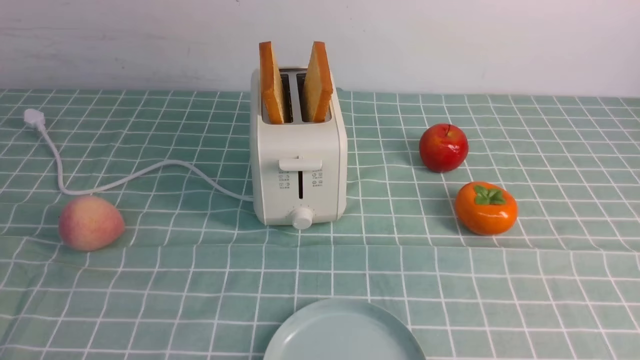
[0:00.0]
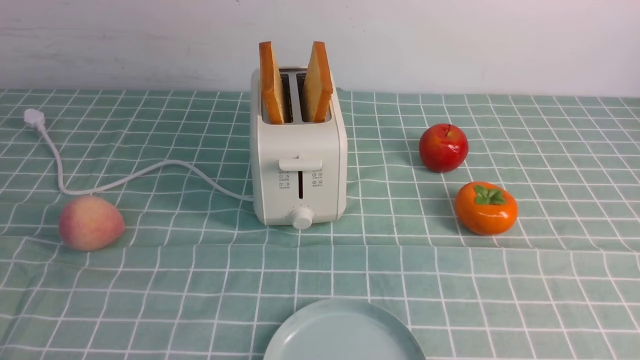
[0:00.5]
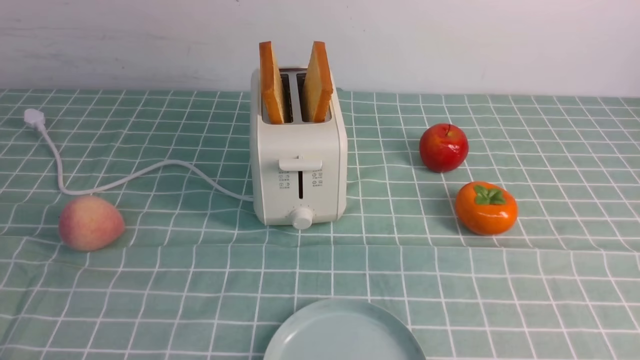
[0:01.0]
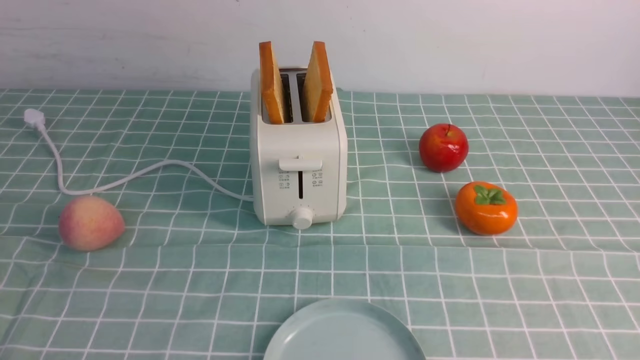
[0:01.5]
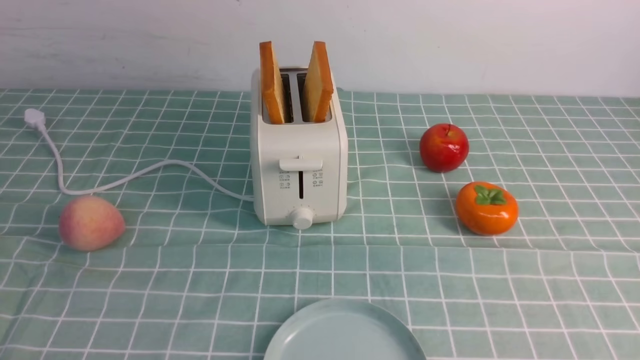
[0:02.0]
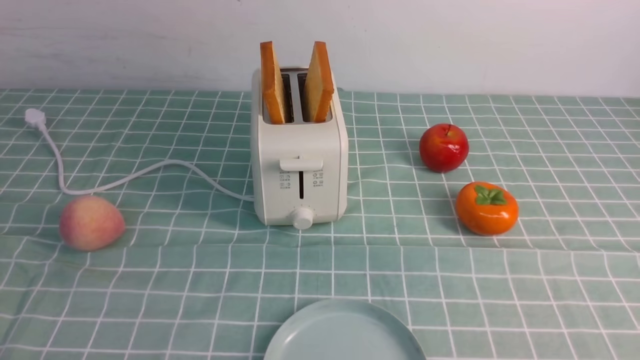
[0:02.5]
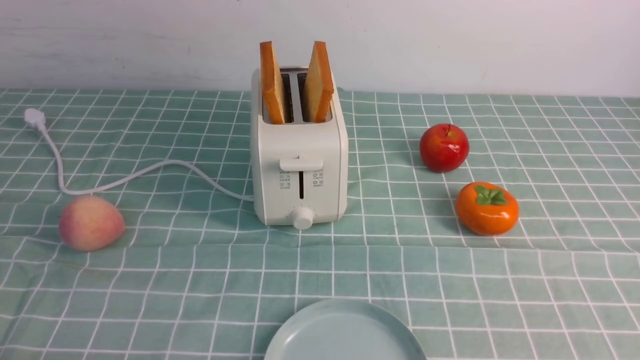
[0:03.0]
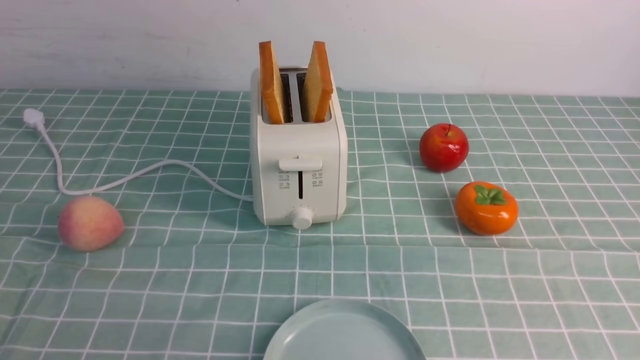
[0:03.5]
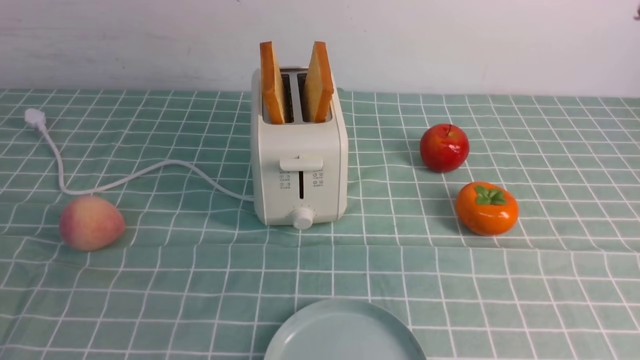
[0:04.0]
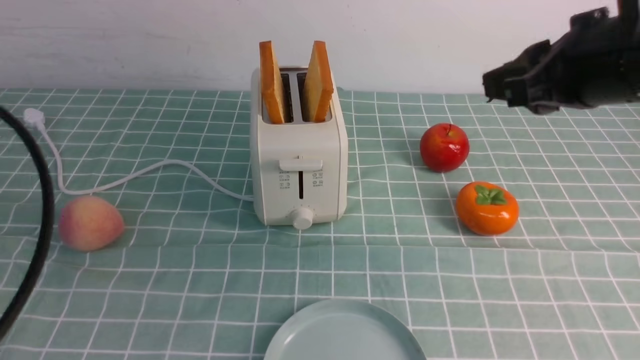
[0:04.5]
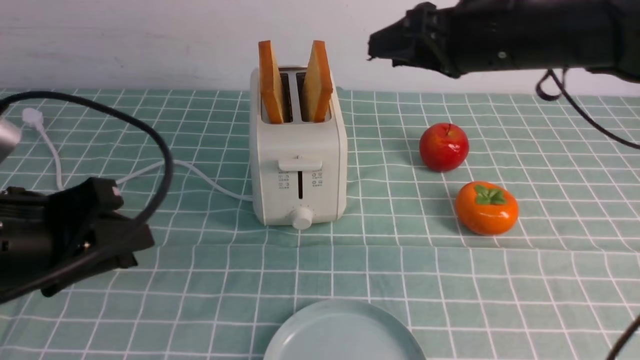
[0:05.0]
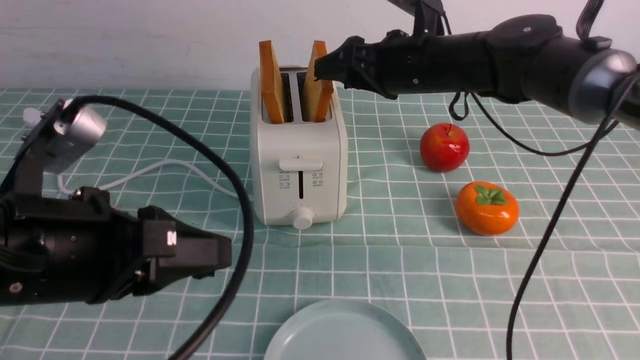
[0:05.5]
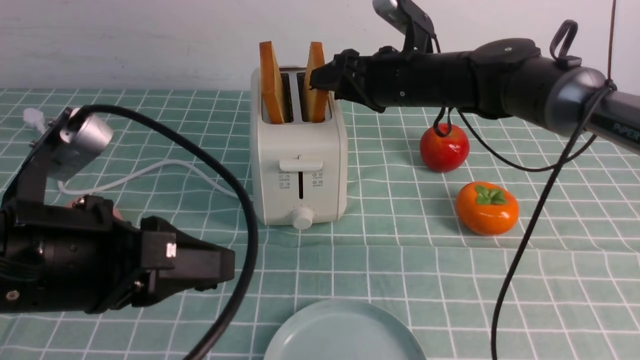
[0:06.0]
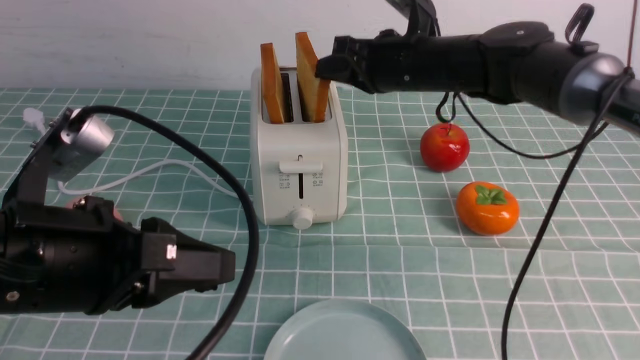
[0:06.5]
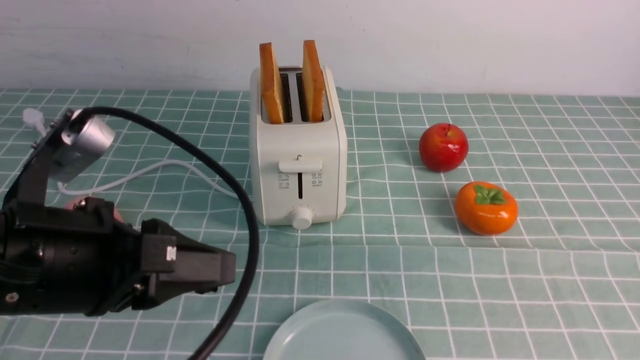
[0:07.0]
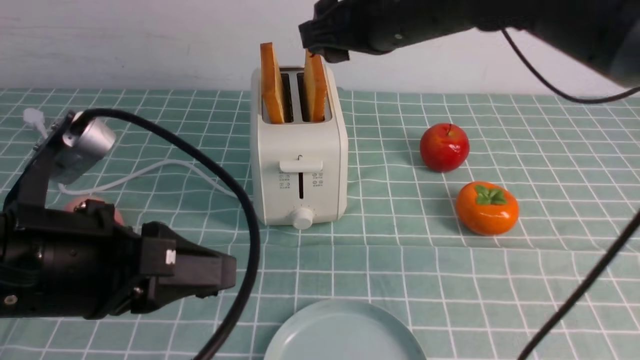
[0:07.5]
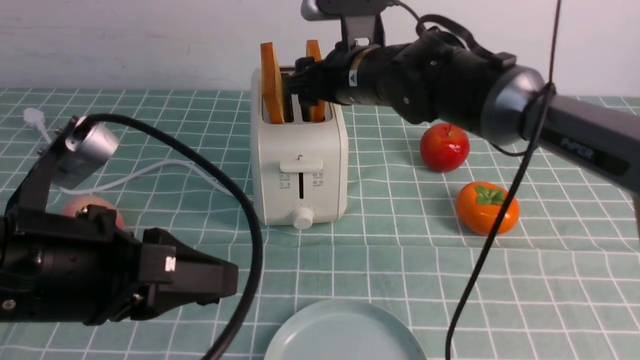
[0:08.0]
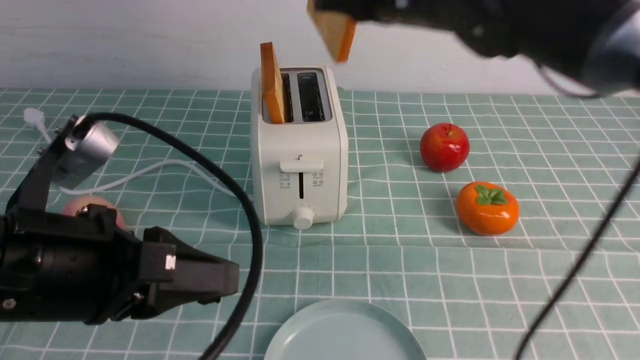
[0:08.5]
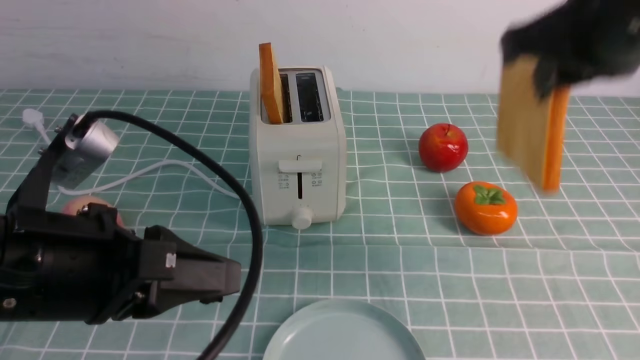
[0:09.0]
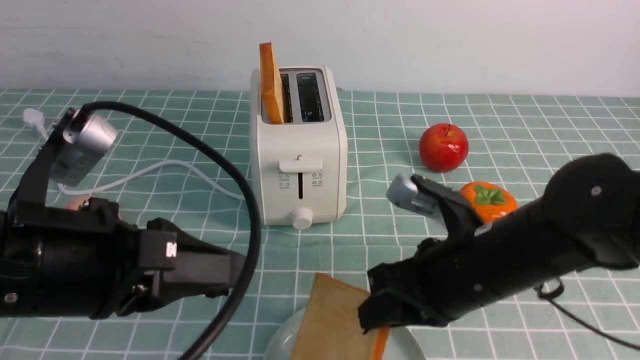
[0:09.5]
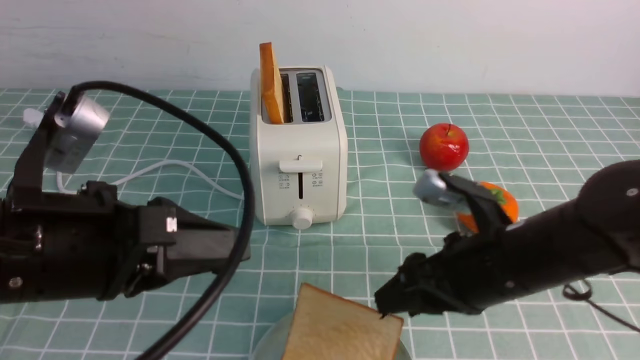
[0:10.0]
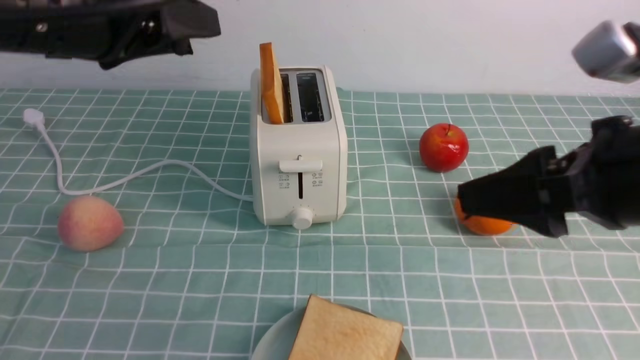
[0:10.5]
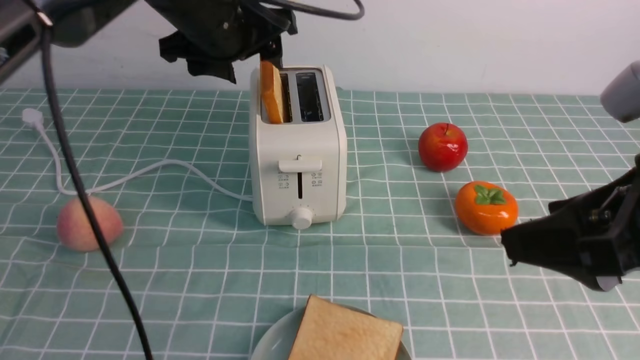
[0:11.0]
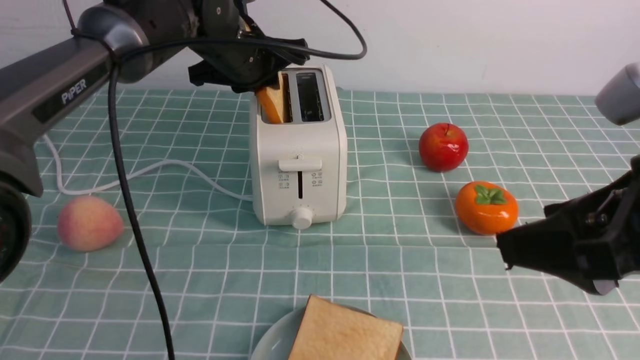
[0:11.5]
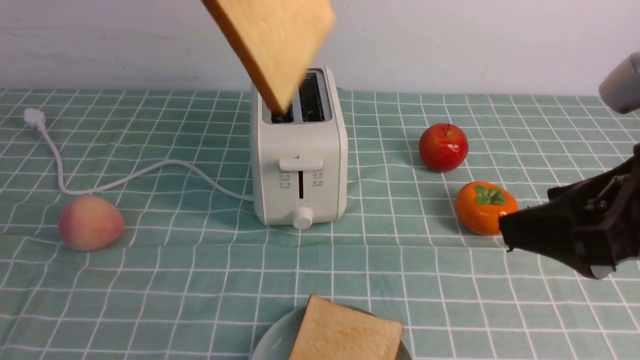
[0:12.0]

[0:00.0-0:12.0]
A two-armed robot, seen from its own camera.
Task of the whole recording: take toasted bread from bread machine on blue coffee table place on plate.
Step, 0:00.0 to 0:08.0: use the right arm to take out a slice of bread.
Step, 0:08.5 to 0:10.0: use the right arm to put a slice of bread into the plate.
Step, 0:10.5 to 0:11.5: use the left arm to take out a slice of bread.
0:00.0 to 0:02.0: Neither gripper changes place.
0:04.0 to 0:06.0: The left gripper goes some 20 cm forward, to the right and downward; the right gripper heads forward, to the left and downward, covering some 35 cm.
0:06.0 to 0:08.0: The right gripper travels to the left by approximately 5 cm, travels upward and back again, roughly 15 cm each way, and closes, then opens again.
0:08.0 to 0:10.0: The right gripper shifts some 20 cm backward and to the right, and closes and opens again.
0:10.0 to 0:12.0: The right gripper travels upward, backward and to the right by about 15 cm; the left gripper is displaced forward, upward and to the right by approximately 15 cm, and opens, then closes once more.

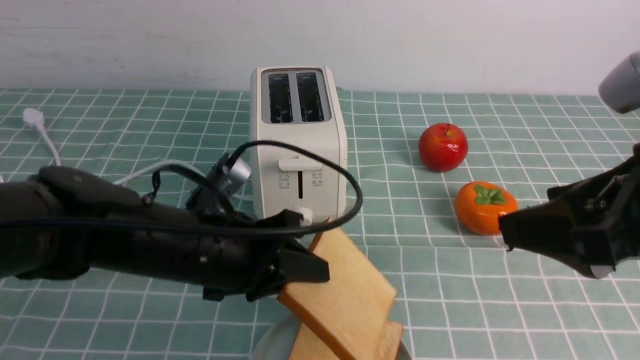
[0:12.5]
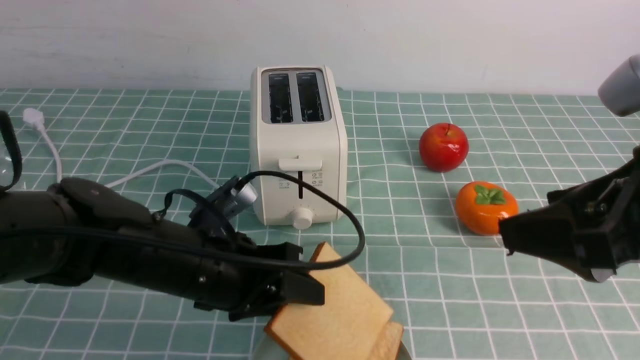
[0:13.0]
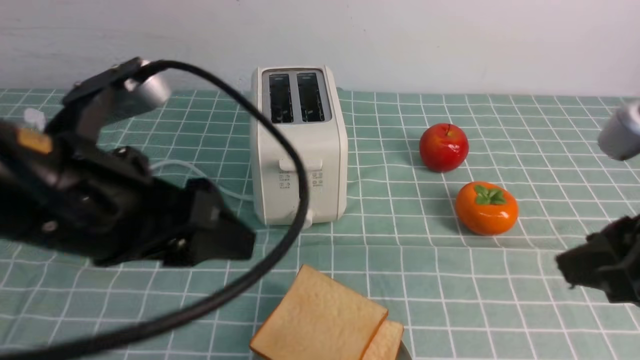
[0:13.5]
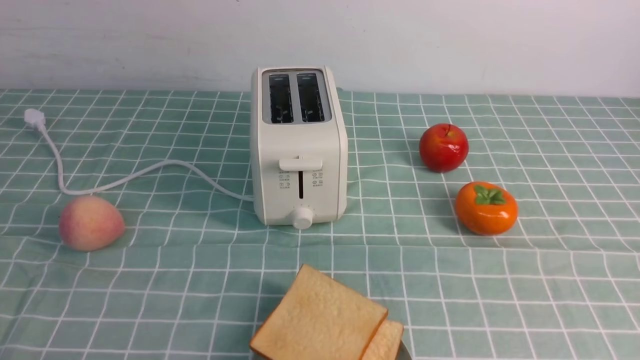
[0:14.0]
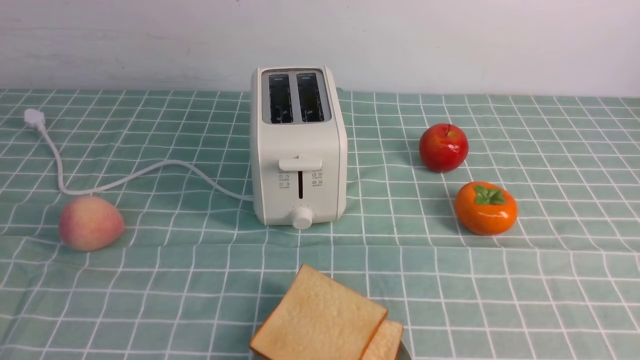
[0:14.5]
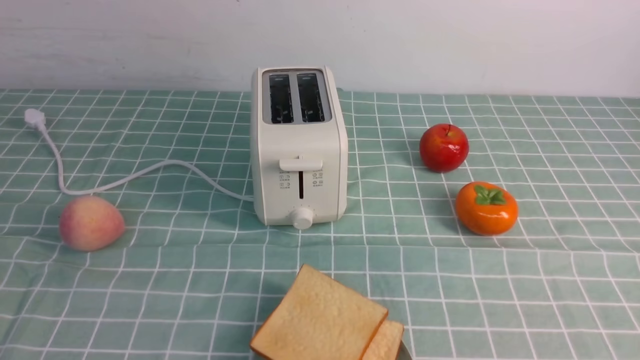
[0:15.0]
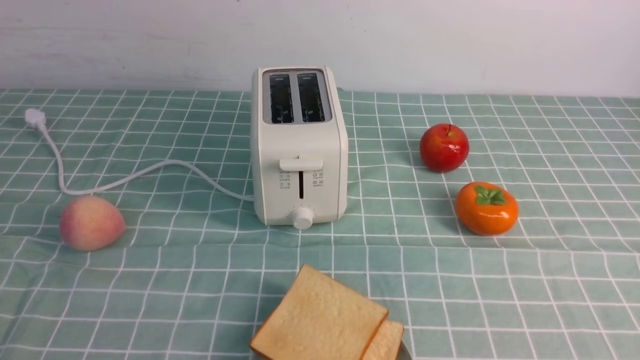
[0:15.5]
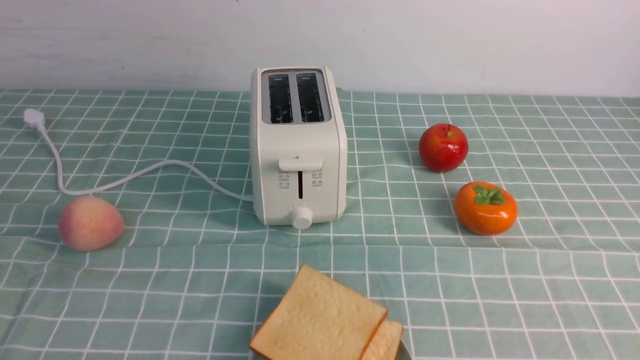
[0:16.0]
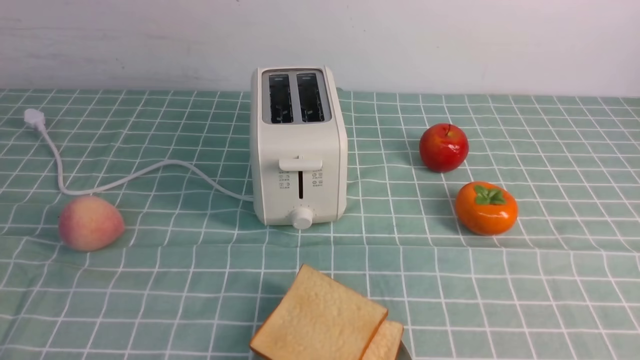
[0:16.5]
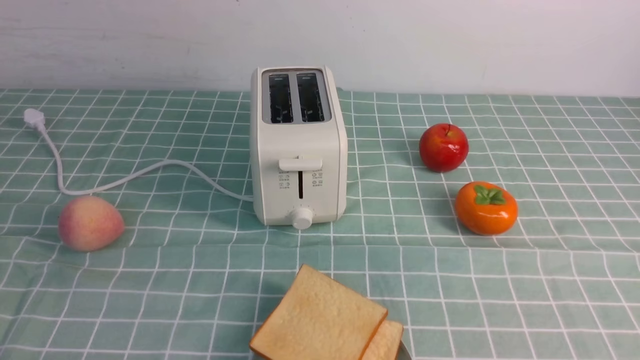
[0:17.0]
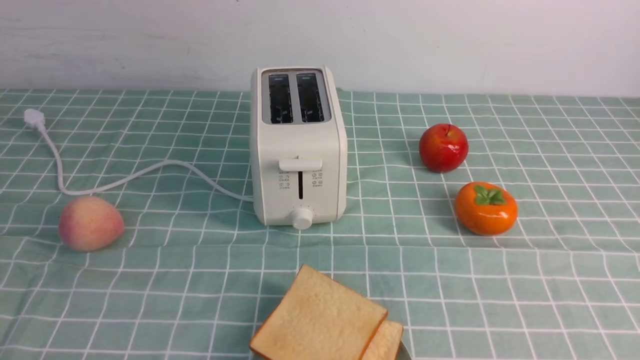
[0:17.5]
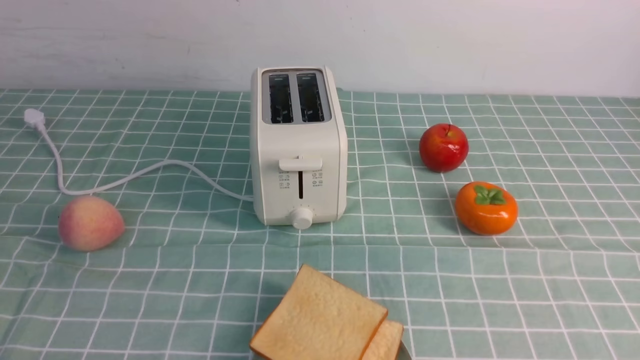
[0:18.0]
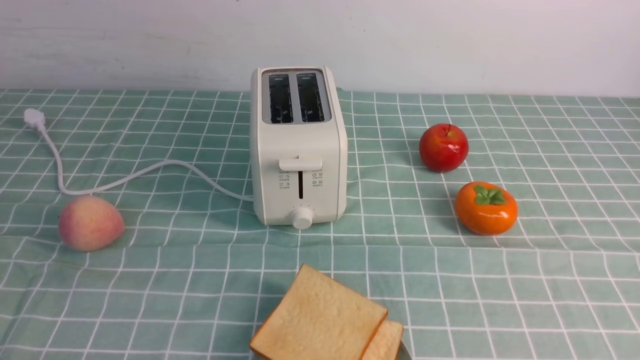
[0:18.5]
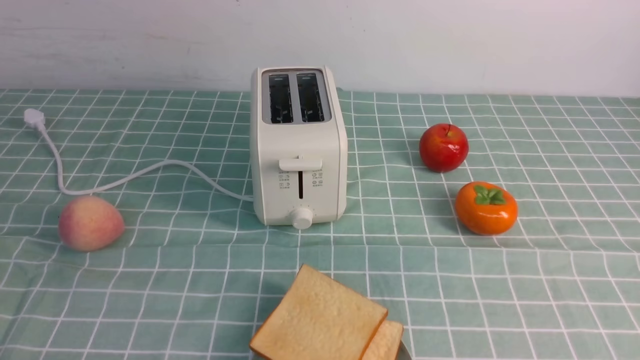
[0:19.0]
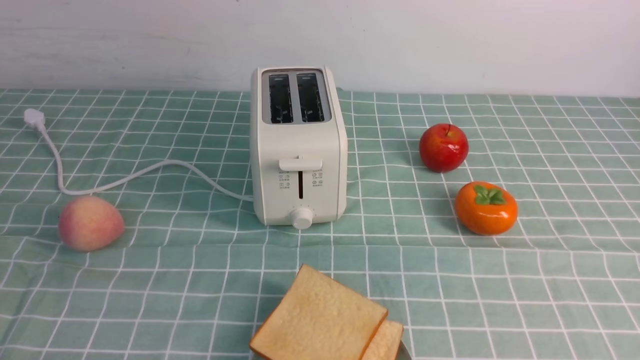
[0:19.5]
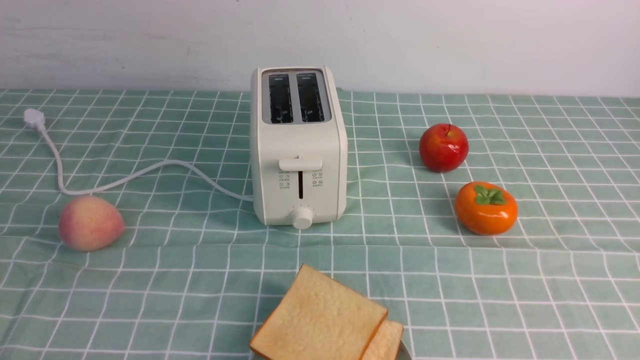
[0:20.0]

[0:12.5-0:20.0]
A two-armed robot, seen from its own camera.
Task of the whole recording: take toasted bread from bread machine on blue coffee table place on plate.
0:12.5 to 0:14.5: The left gripper shifts roughly 30 cm backward and to the left, and opens, then closes again; the right gripper goes approximately 20 cm backward, to the right and downward, and closes its fingers.
0:18.0 to 0:20.0: Both grippers stay about where they are.
